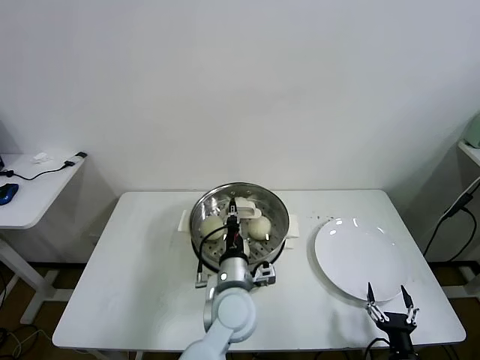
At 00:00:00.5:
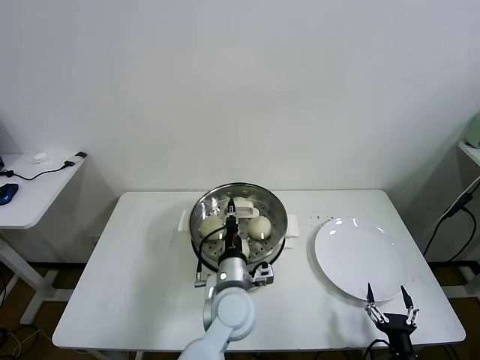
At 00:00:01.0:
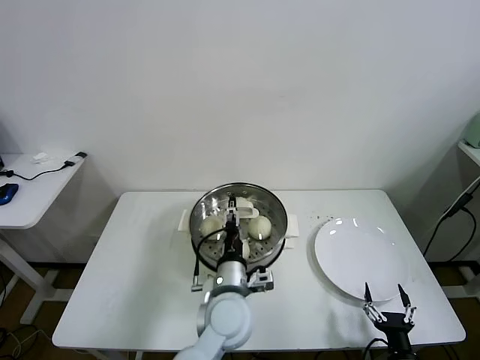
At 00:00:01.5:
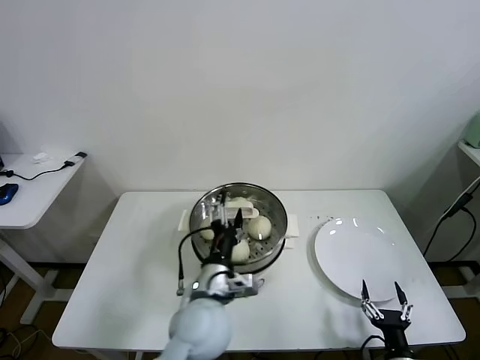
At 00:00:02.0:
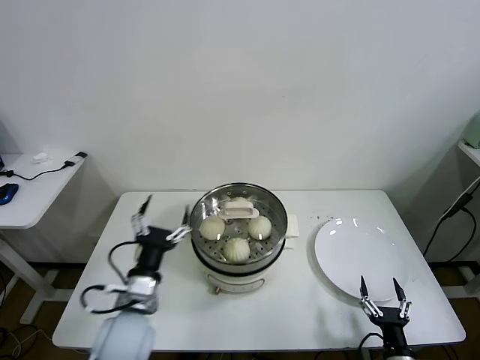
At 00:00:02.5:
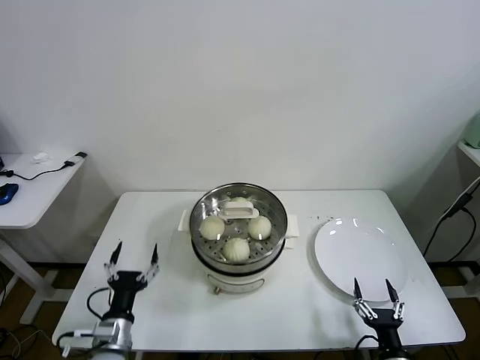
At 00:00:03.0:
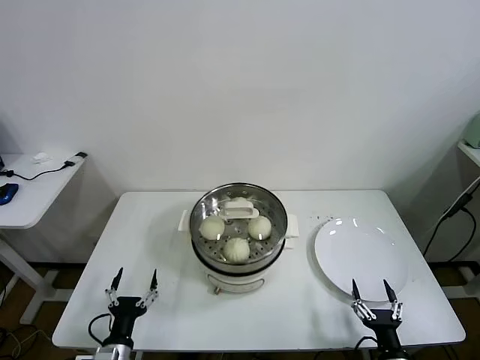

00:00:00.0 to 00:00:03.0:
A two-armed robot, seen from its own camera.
Task of the whole recording: take steamed baozi put them in steamer.
00:00:00.0 to 00:00:01.5: The left gripper moves some 5 cm, and opens its fingers.
00:00:01.5 to 00:00:03.0: The left gripper heads to the left, downward and backward, covering roughly 30 cm.

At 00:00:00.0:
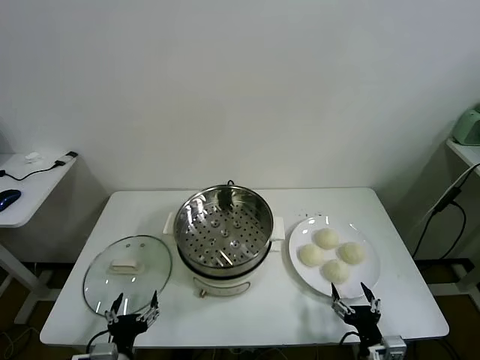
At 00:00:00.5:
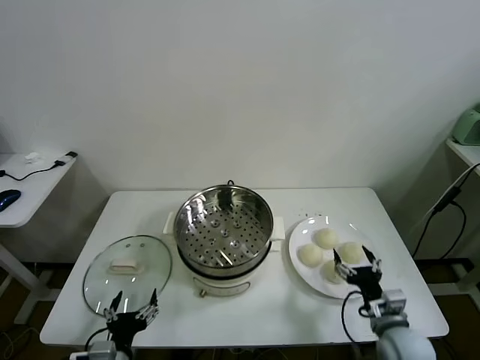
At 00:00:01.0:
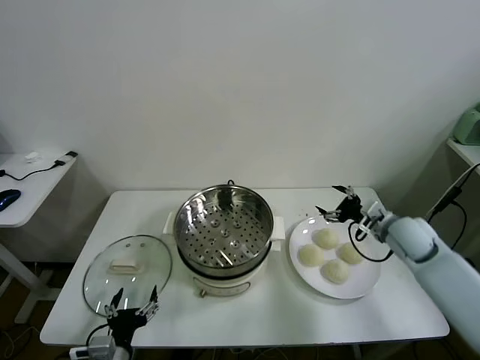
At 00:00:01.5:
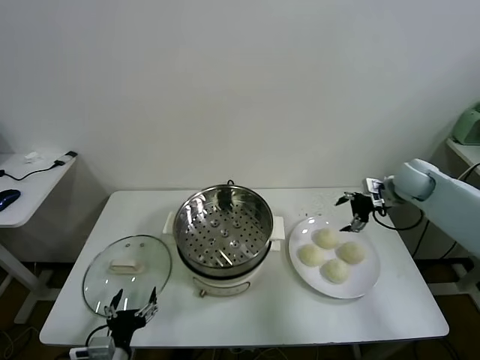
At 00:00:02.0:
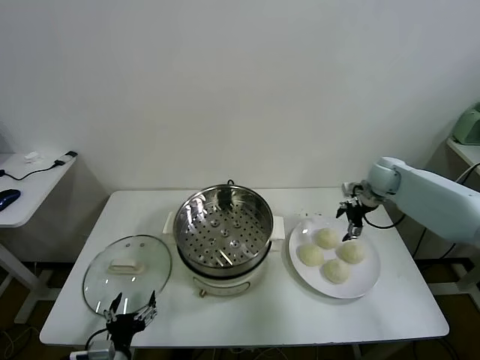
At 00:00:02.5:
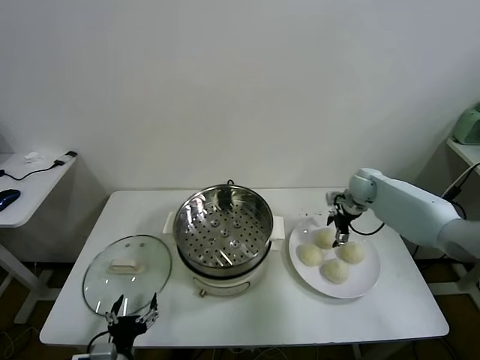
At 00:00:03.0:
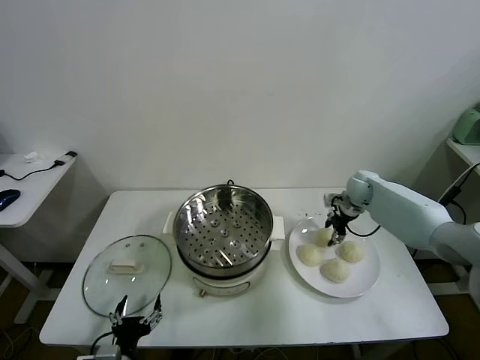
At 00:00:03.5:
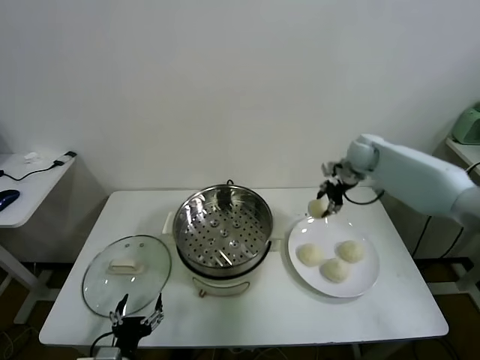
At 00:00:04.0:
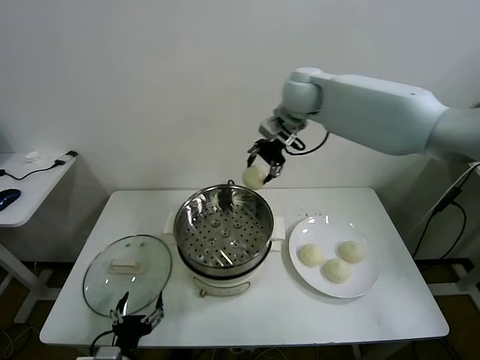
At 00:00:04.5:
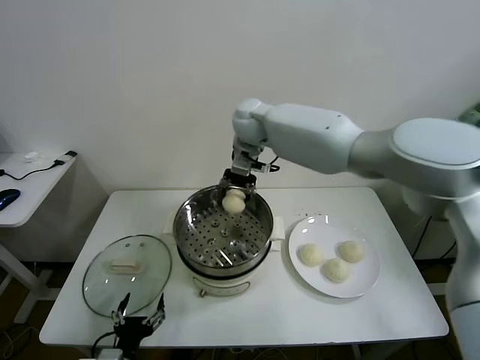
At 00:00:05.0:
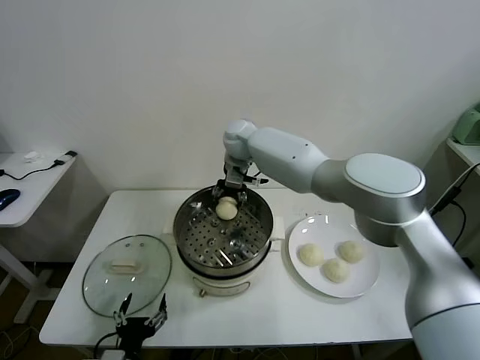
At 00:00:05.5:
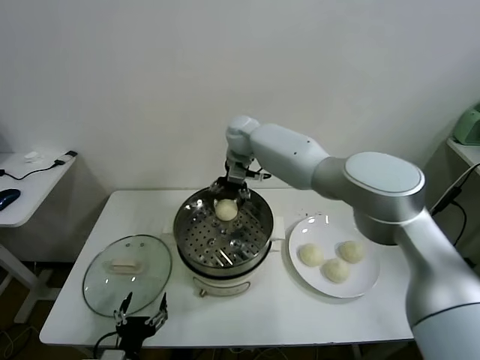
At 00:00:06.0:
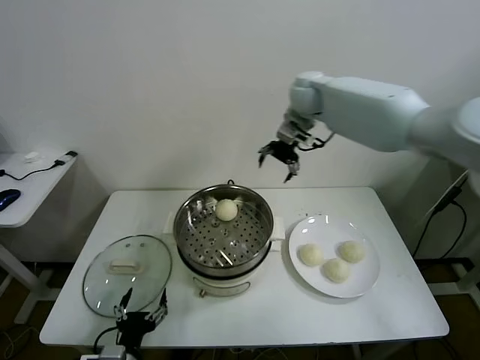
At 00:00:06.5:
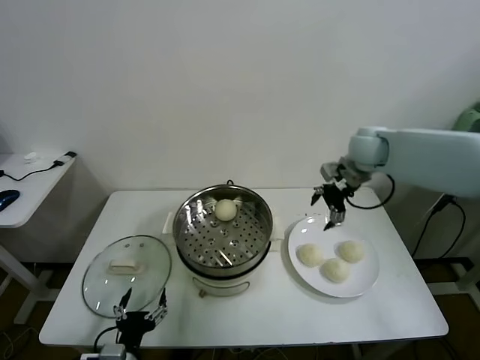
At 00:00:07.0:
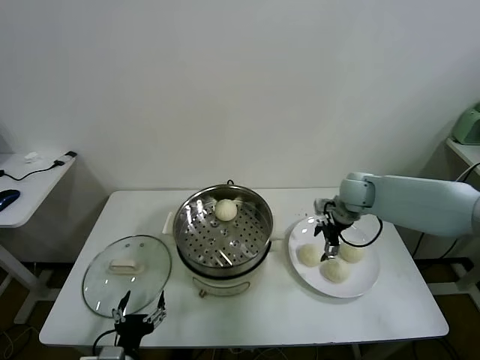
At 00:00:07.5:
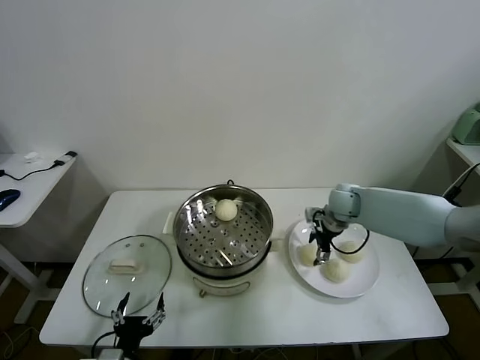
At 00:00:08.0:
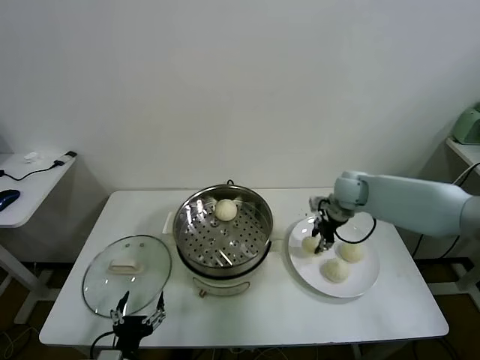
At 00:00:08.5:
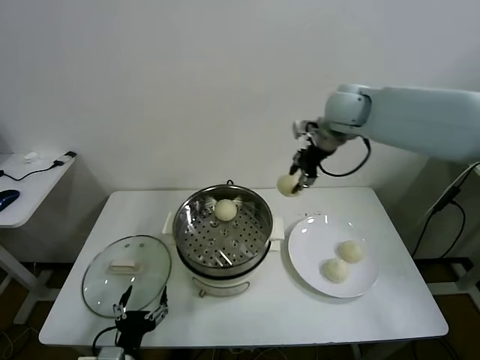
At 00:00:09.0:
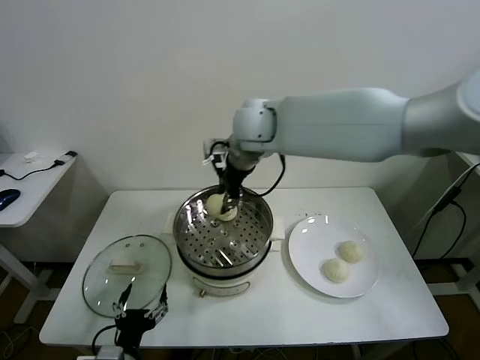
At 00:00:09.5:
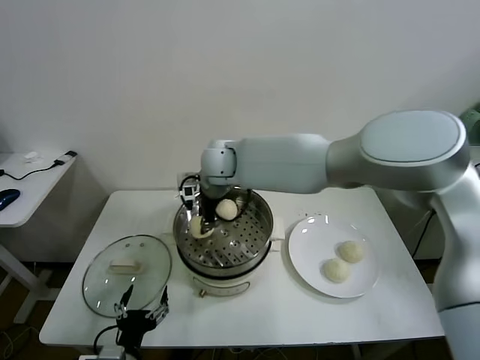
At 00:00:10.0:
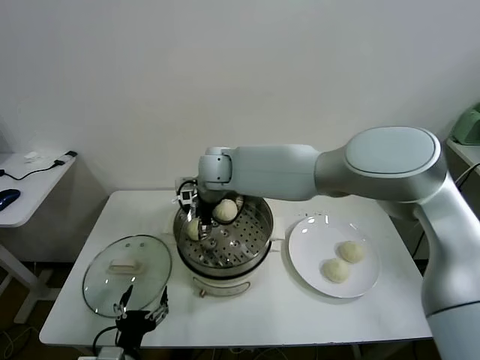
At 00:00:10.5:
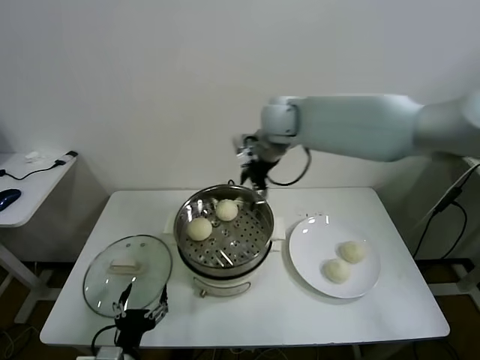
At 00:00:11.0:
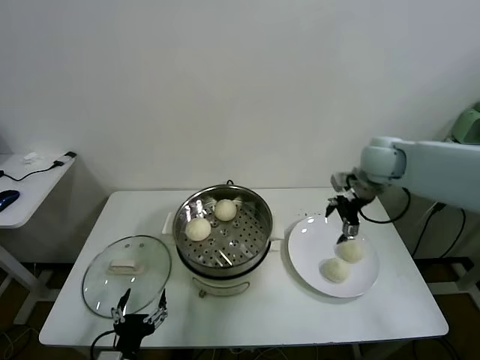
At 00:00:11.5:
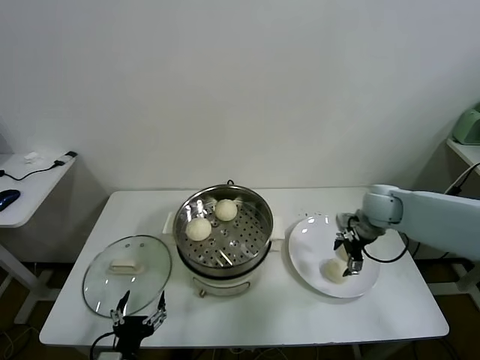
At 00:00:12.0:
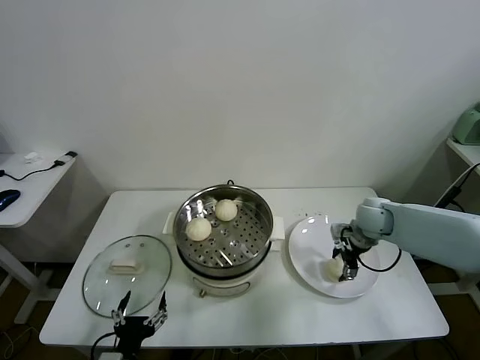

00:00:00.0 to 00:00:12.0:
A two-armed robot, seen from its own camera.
Task of the whole recording: take steamed baozi put them in steamer.
Step, 00:00:00.0 to 00:00:02.5: Grasp the baozi in the plate with right gripper.
Step, 00:00:03.0 to 00:00:05.0: Place the baozi on the steamer with right gripper.
Step, 00:00:06.0 to 00:00:07.5: Grasp the baozi in the plate with right gripper.
Step, 00:00:08.0 to 00:00:10.0: Place the baozi on the steamer with right gripper.
00:00:02.0 to 00:00:04.0: The right gripper moves to the left and upward, roughly 35 cm, and closes up.
00:00:04.0 to 00:00:06.0: The right gripper heads to the right, covering roughly 10 cm, and opens its fingers.
00:00:06.0 to 00:00:08.0: The right gripper goes some 20 cm downward and to the right, and closes.
00:00:08.0 to 00:00:10.0: The right gripper travels to the left by some 35 cm, and opens up.
00:00:10.0 to 00:00:12.0: The right gripper travels to the right by about 40 cm.

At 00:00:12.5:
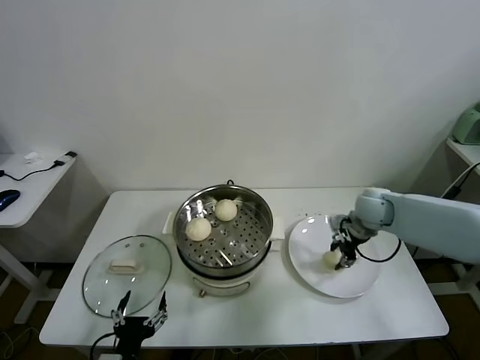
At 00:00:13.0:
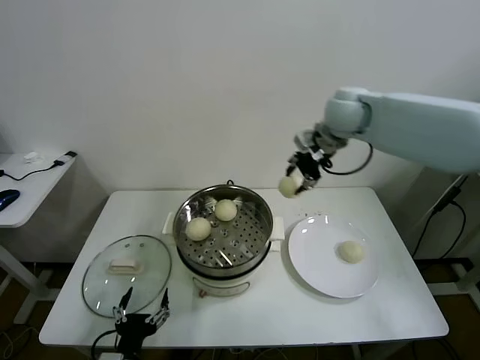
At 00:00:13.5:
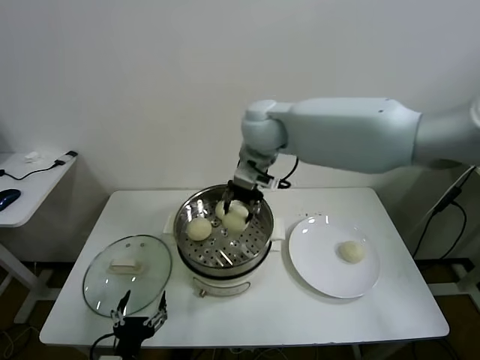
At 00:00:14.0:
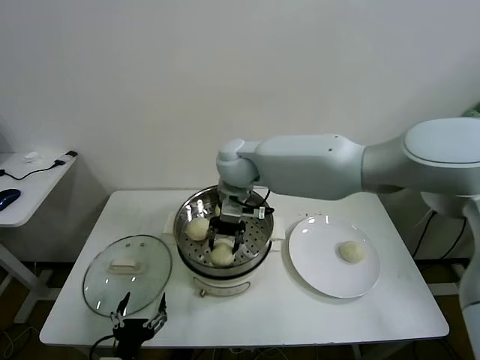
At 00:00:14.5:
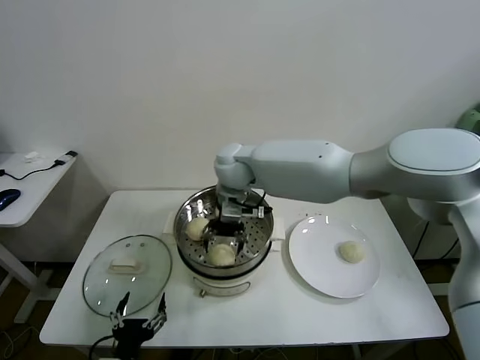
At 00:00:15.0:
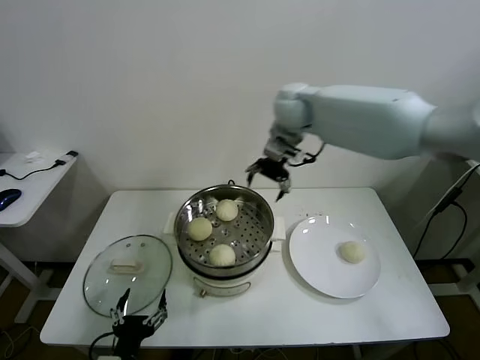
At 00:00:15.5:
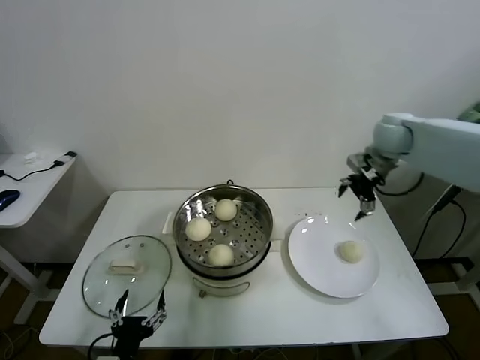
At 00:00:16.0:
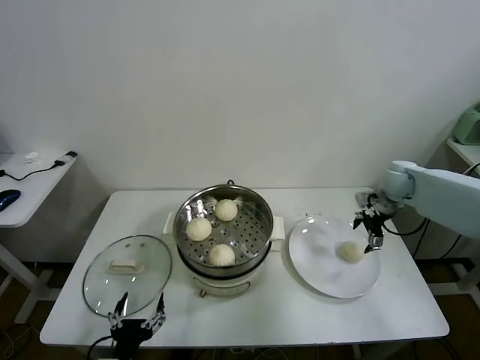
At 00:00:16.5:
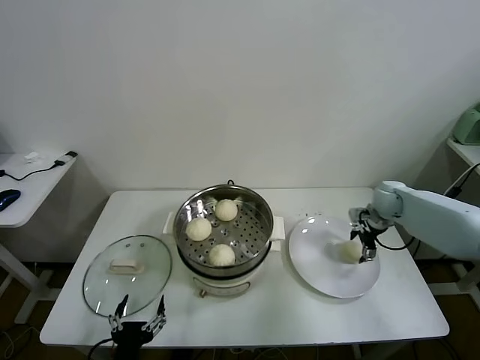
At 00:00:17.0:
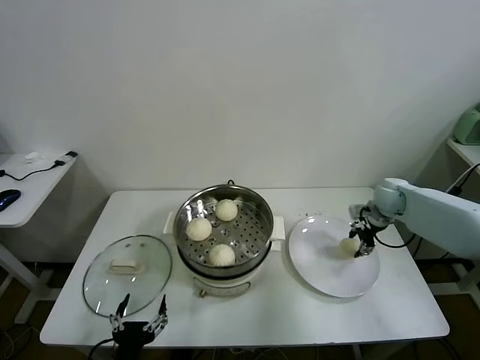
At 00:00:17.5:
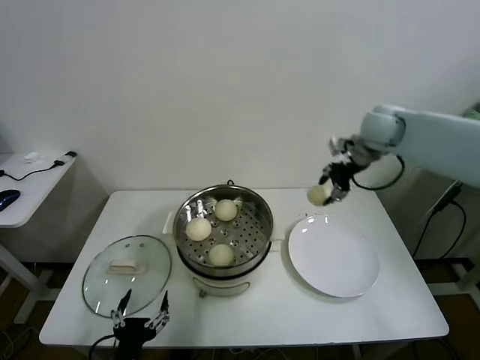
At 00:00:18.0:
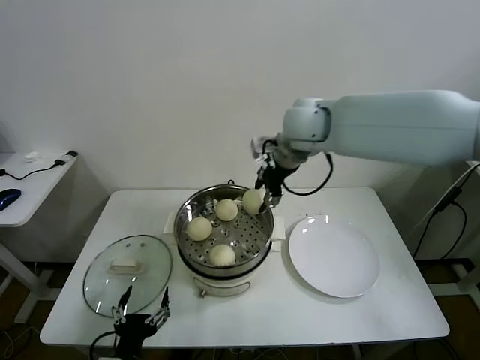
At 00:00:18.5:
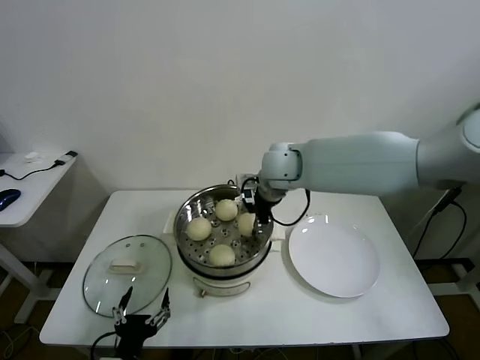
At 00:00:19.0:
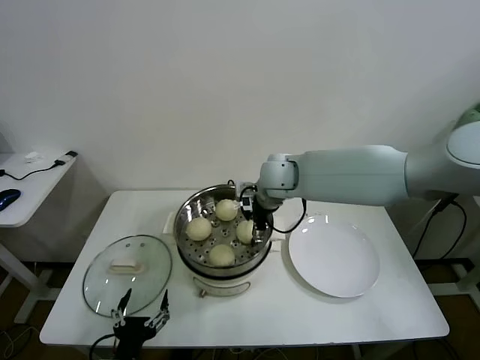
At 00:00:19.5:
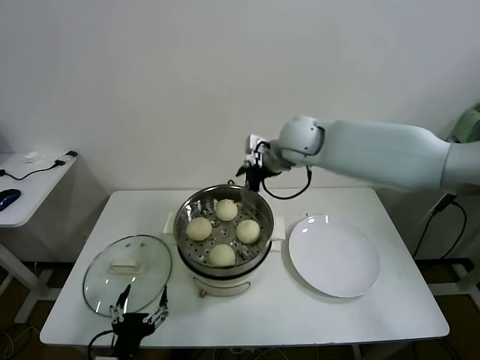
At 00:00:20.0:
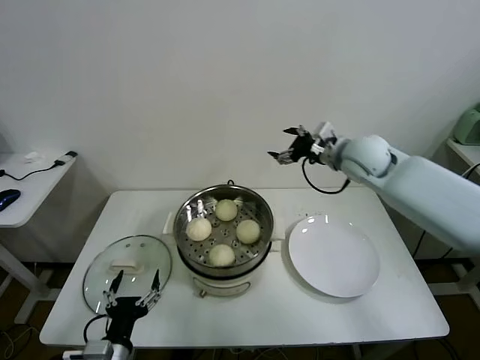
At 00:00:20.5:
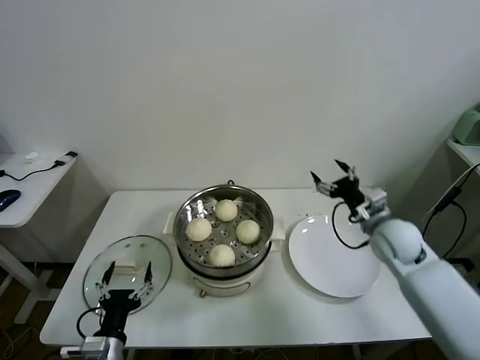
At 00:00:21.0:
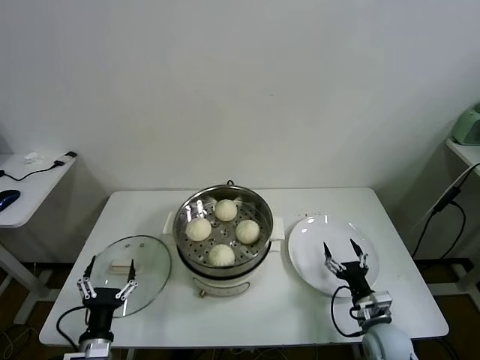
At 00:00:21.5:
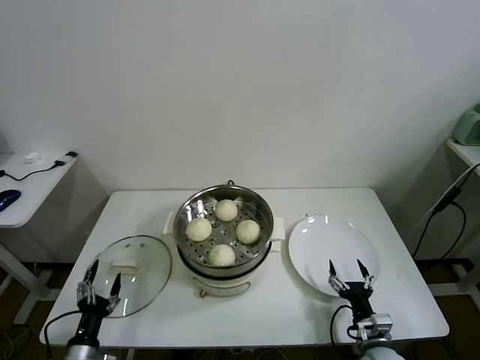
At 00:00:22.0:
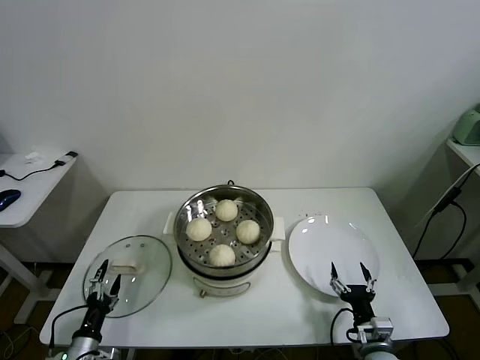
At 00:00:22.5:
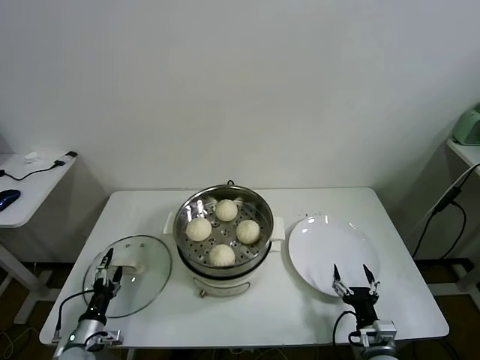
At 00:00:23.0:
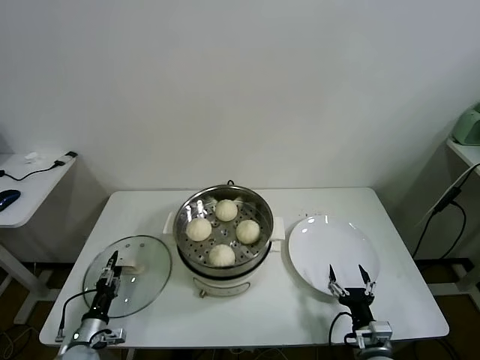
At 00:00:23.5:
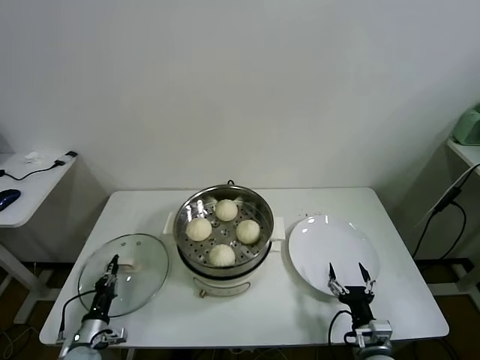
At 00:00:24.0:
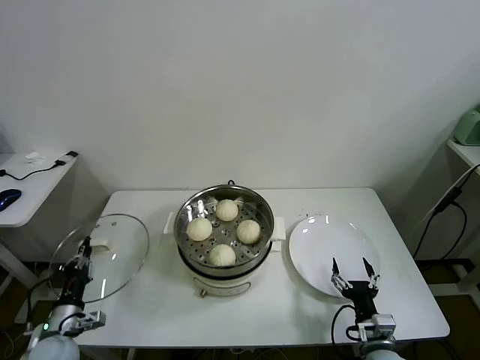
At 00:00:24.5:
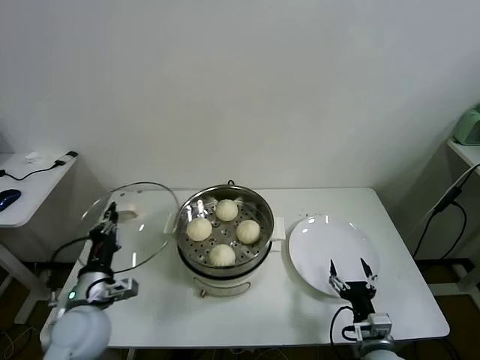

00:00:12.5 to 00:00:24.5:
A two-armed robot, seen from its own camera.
Task of the whole recording: take steamed baozi put them in steamer.
Step, 00:00:12.5 to 00:00:14.0: Place the baozi on the steamer with right gripper.
Step, 00:00:15.0 to 00:00:16.5: Grasp the baozi in the plate with right gripper.
Step, 00:00:17.0 to 00:00:19.0: Place the baozi on the steamer with right gripper.
Step, 00:00:19.5 to 00:00:23.0: Grasp the pot lid with left gripper.
00:00:12.5 to 00:00:14.5: The right gripper travels to the left by some 35 cm, and opens up.
00:00:14.5 to 00:00:16.5: The right gripper goes roughly 40 cm to the right.
00:00:16.5 to 00:00:18.5: The right gripper shifts approximately 35 cm to the left and upward, and closes its fingers.
00:00:18.5 to 00:00:20.5: The right gripper goes some 30 cm to the right and downward, and opens up; the left gripper changes place by roughly 5 cm.
00:00:20.5 to 00:00:22.5: The left gripper travels to the left, downward and forward by approximately 20 cm; the right gripper heads backward and downward, covering some 30 cm.
00:00:22.5 to 00:00:24.5: The left gripper is displaced upward and to the right by about 20 cm, and closes its fingers.
